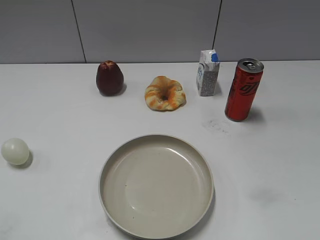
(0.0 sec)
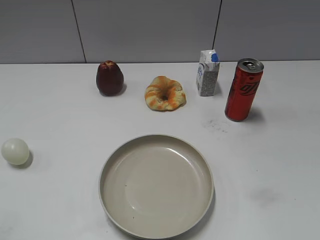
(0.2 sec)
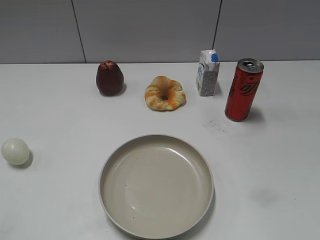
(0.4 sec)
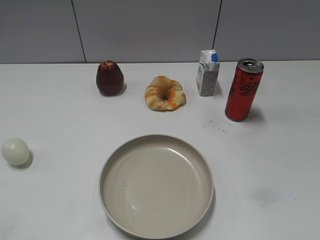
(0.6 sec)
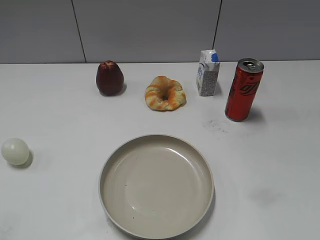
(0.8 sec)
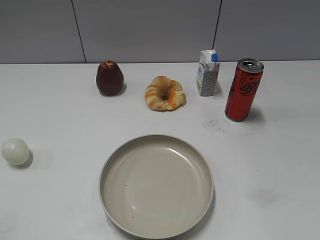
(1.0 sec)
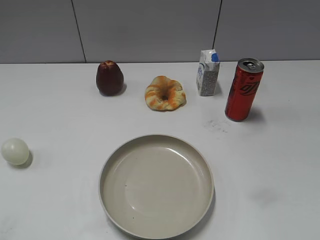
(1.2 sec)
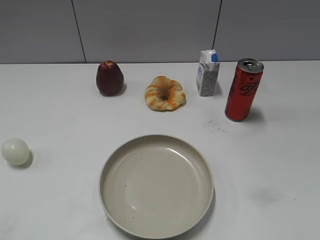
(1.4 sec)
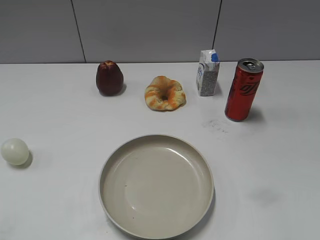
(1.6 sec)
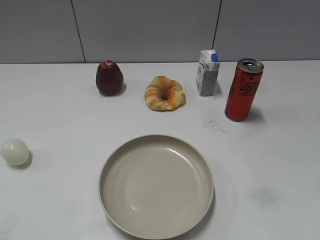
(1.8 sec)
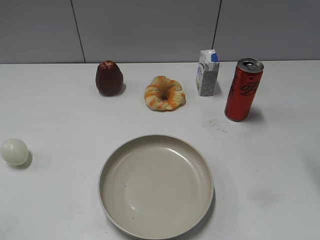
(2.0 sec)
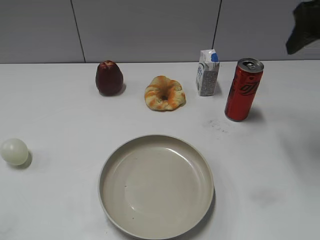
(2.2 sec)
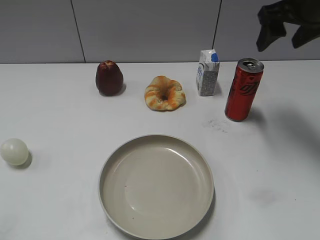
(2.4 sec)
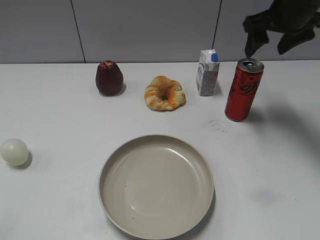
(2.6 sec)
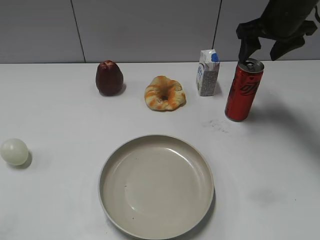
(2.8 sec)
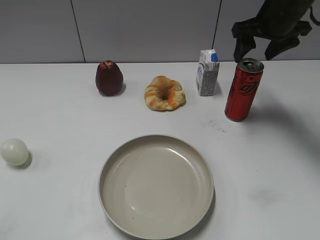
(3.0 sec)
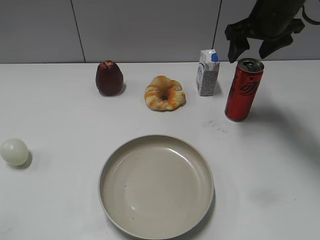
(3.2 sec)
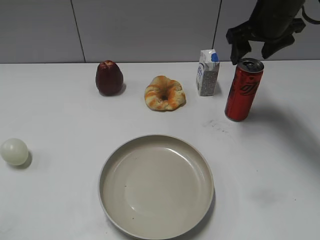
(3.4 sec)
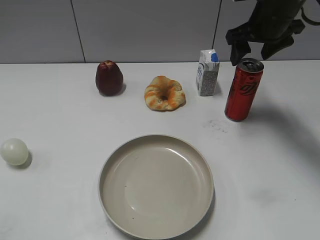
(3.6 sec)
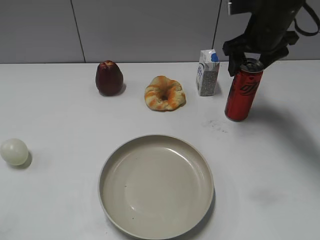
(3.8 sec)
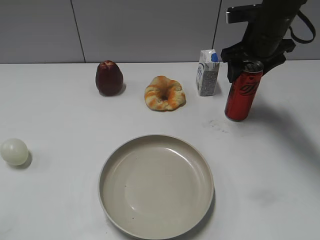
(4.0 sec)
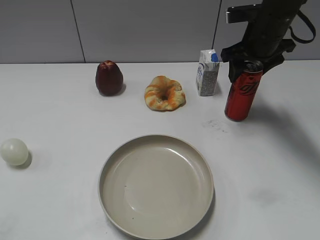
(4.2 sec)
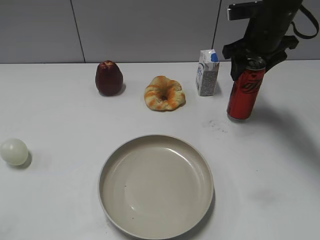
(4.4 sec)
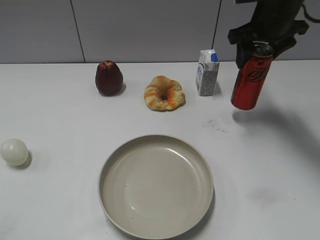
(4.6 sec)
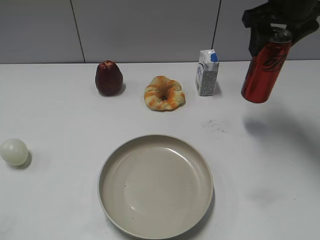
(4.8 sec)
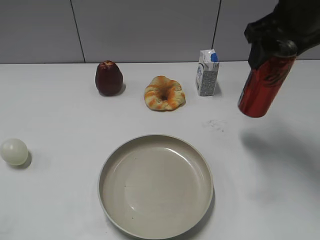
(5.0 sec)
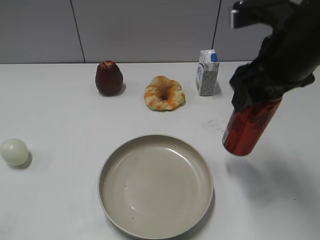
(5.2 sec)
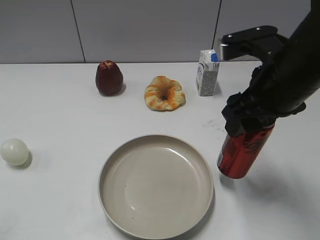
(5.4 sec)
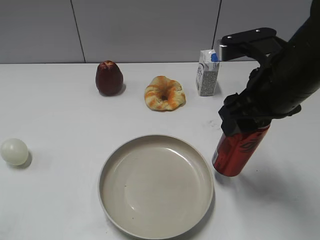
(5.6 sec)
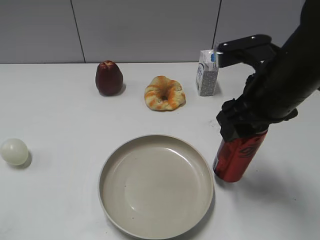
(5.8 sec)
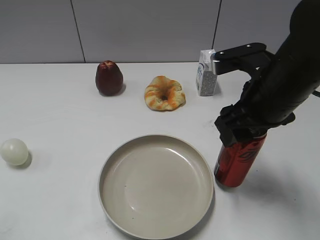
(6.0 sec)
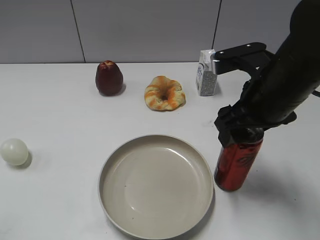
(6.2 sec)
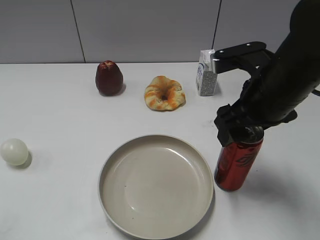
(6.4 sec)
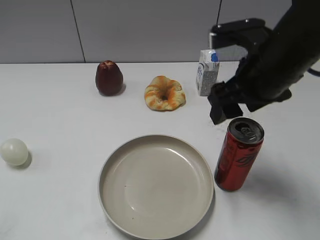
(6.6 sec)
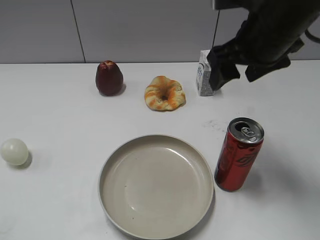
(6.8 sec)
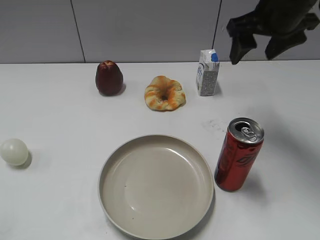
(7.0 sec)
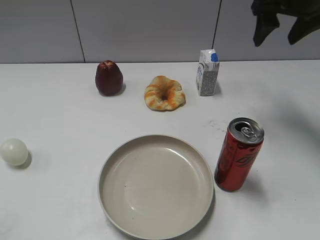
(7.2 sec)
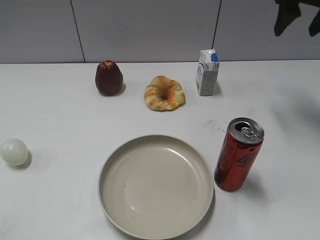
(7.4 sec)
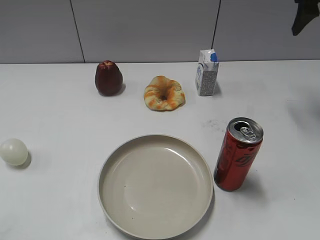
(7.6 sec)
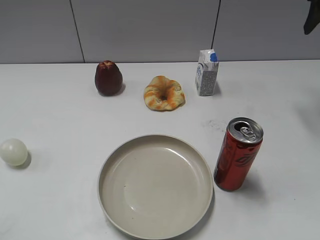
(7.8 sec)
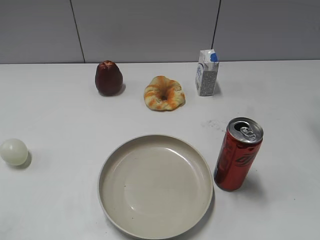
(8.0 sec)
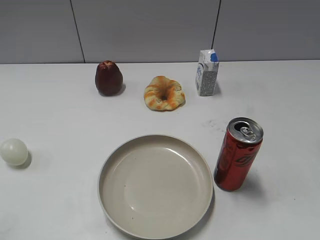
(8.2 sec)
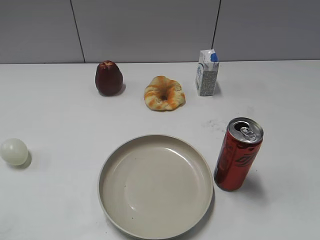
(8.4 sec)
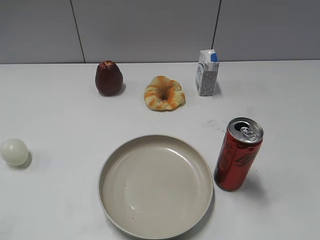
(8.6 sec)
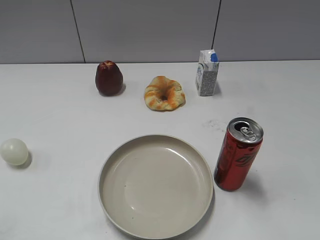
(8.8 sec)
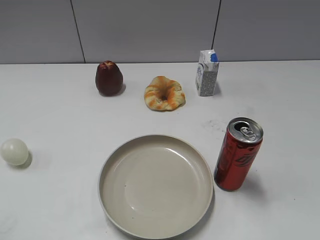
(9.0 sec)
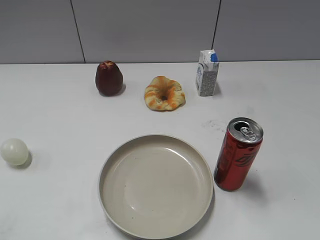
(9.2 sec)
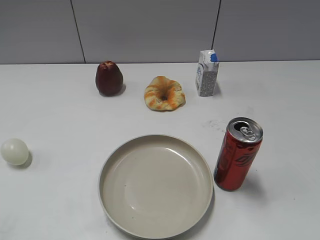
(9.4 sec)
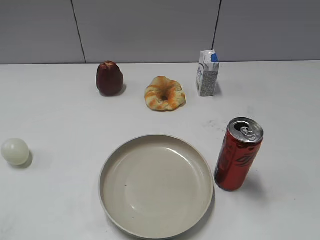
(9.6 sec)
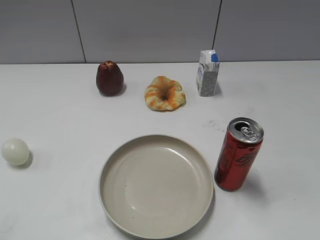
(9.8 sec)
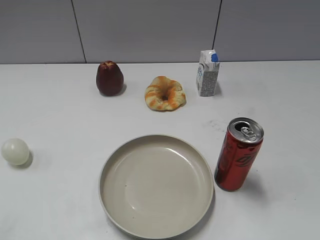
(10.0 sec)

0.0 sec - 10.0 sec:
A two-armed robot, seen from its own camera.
Step, 1.2 sec - 4.0 sec: Grasp the cola with right gripper.
Step, 4.4 sec - 6.8 sec: Place the cola on the table with right gripper.
1.4 sec - 2.8 sec: The right gripper heads forward, covering roughly 35 cm.
2.8 sec - 4.2 sec: The right gripper changes place by some 5 cm, and closes.
4.2 sec - 5.8 sec: The right gripper travels backward by approximately 20 cm.
5.8 sec - 7.2 sec: The right gripper moves forward, upward and to the right, roughly 20 cm, and opens up.
7.2 sec - 8.6 sec: The right gripper heads backward, covering about 25 cm.
